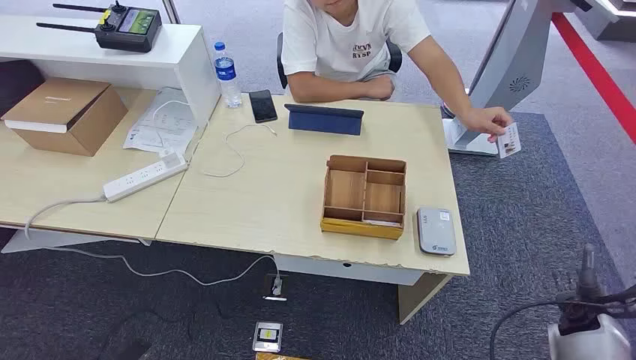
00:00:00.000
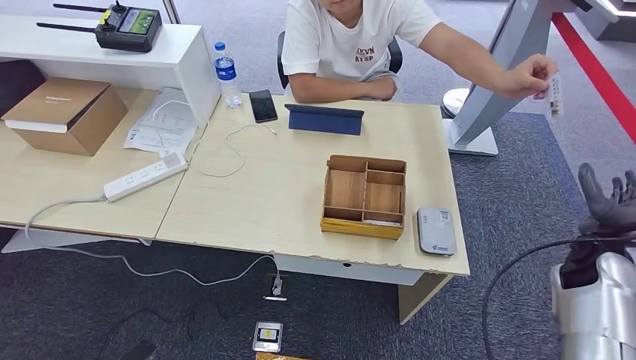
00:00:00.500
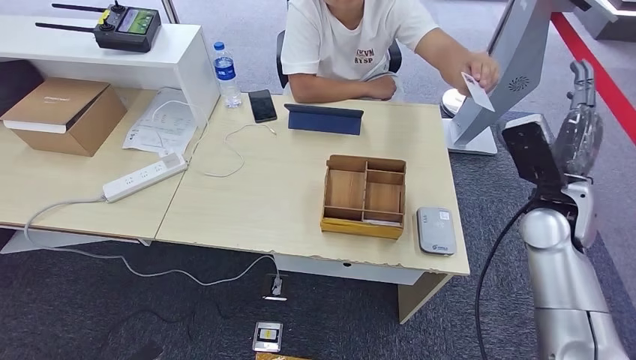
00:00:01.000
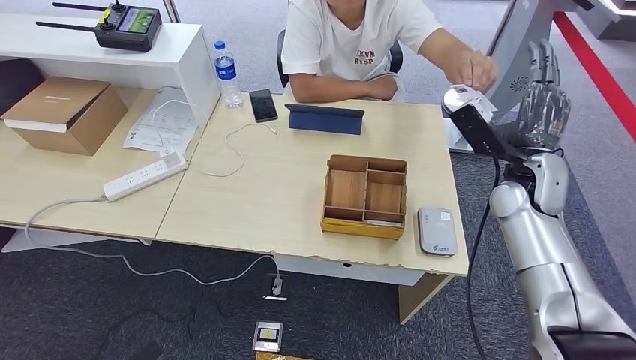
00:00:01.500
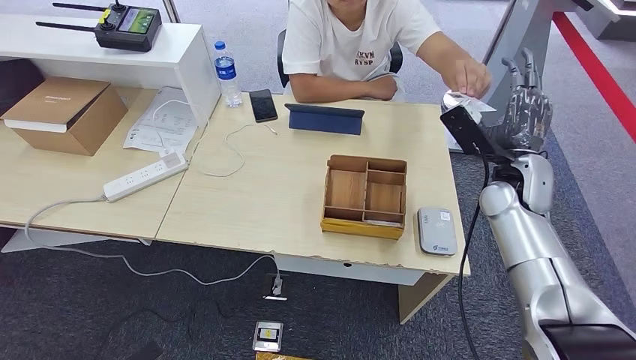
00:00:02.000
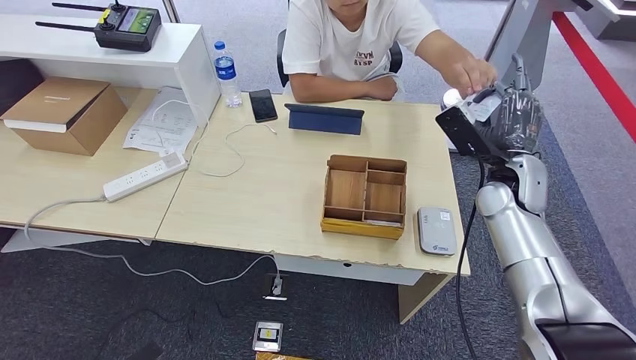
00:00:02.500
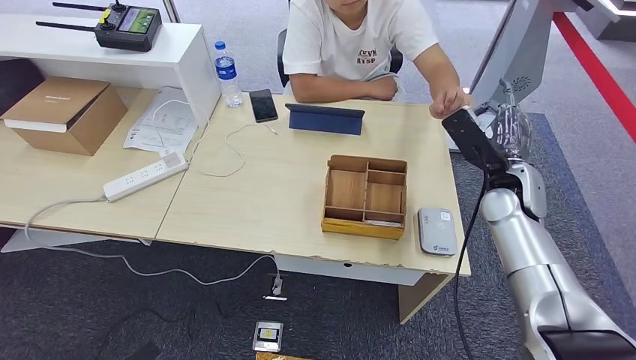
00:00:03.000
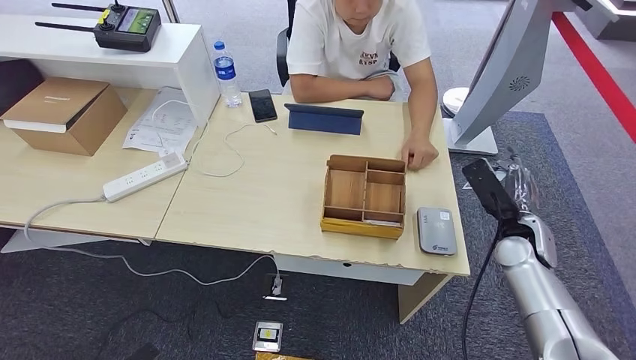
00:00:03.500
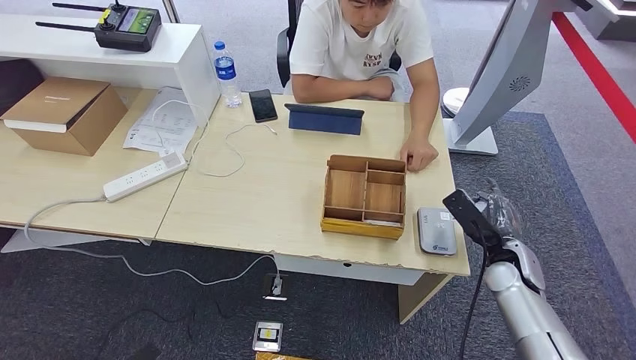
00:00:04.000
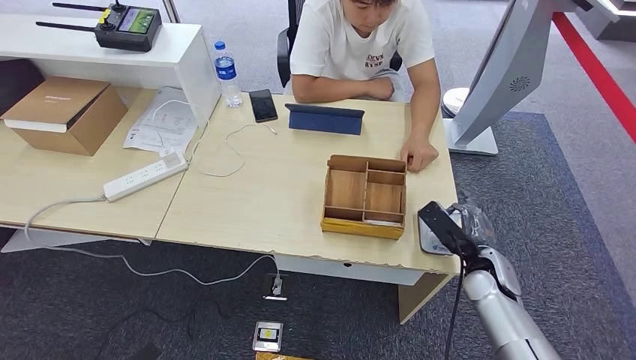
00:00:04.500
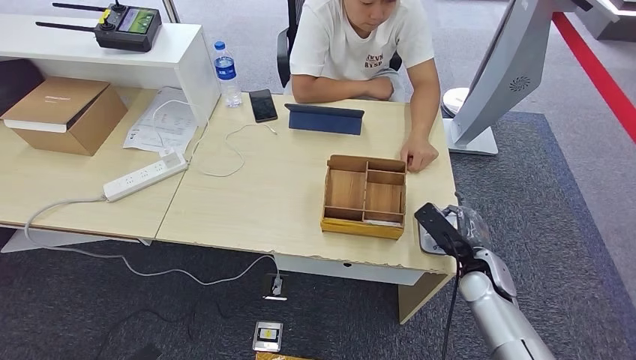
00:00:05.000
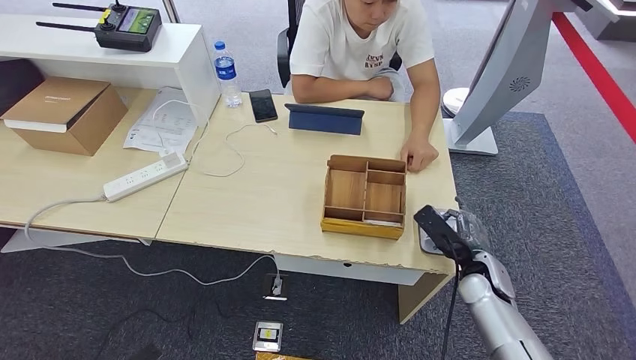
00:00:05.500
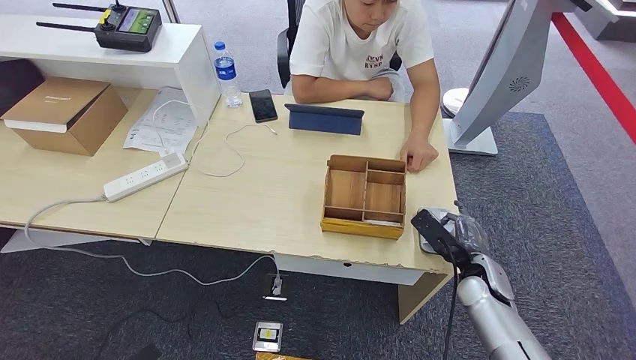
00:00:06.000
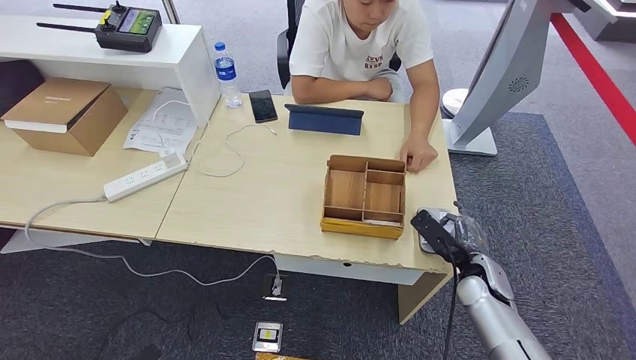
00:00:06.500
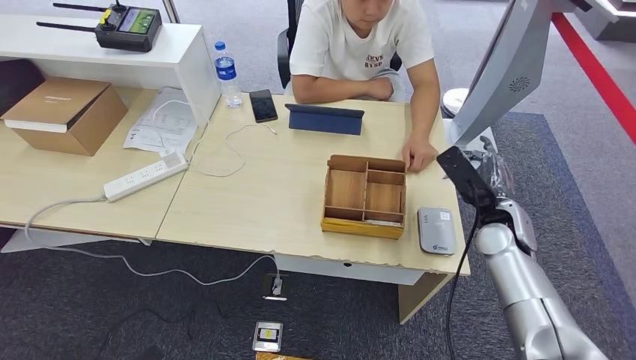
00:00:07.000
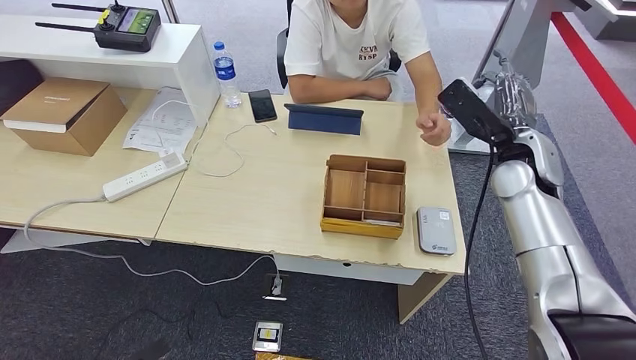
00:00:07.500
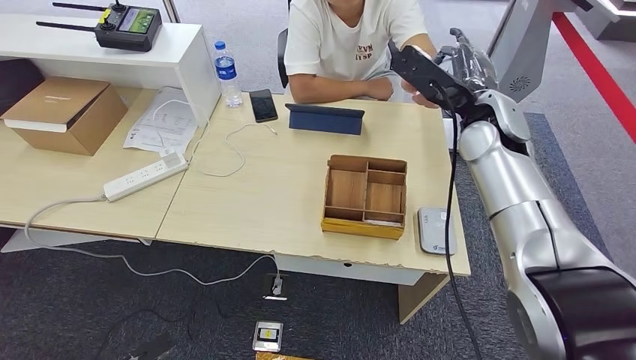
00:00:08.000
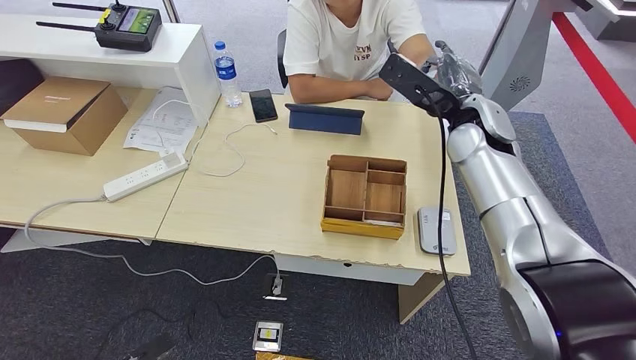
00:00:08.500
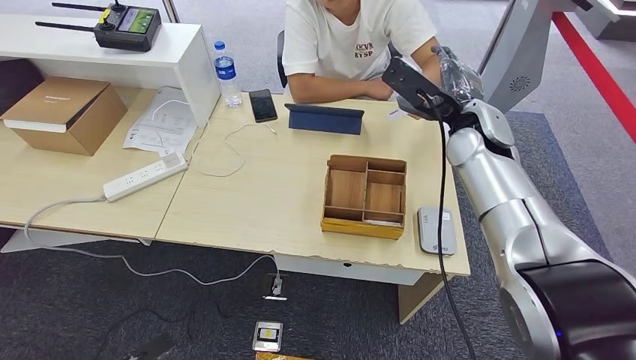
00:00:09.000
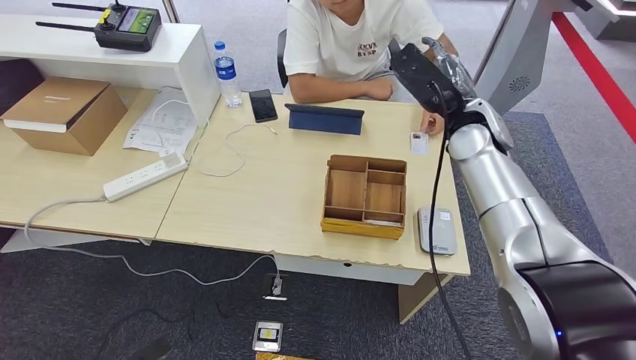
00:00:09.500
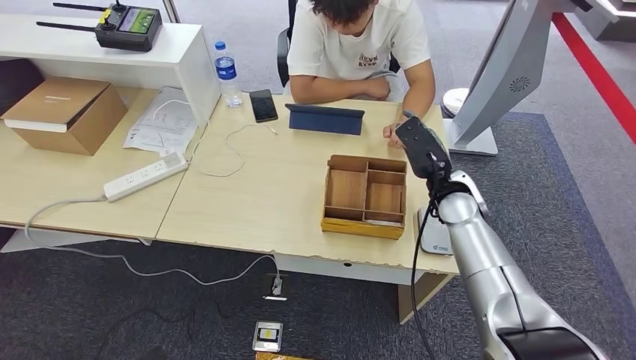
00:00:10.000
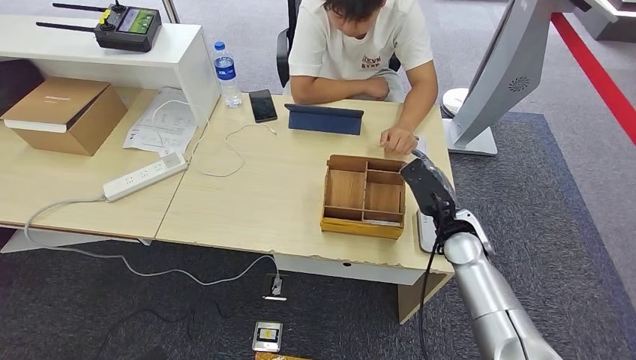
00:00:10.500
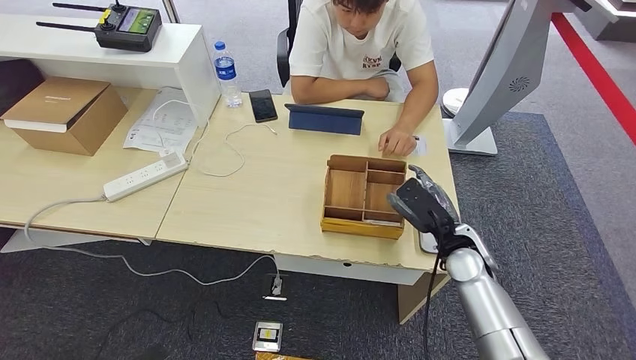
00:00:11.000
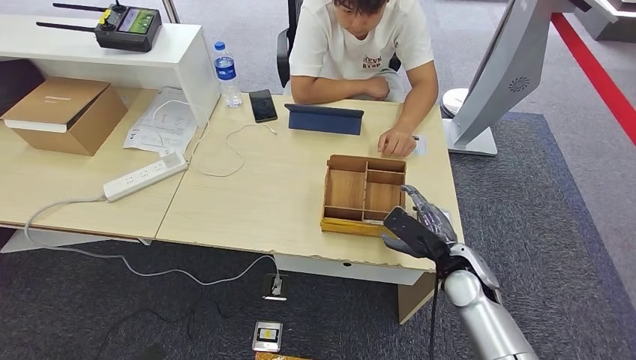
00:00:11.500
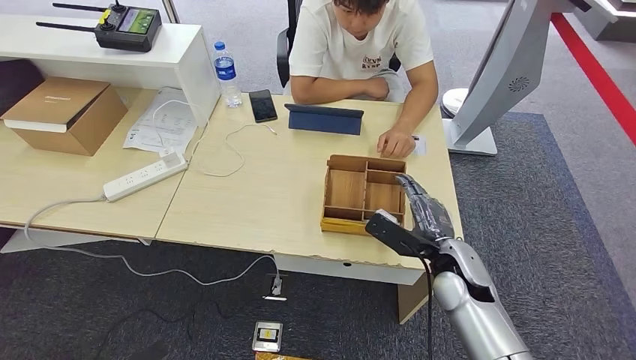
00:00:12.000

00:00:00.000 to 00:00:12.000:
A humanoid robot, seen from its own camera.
Step, 00:00:00.000 to 00:00:03.000: Take the ID card from the person's hand.
Step, 00:00:03.500 to 00:00:05.500: Place the ID card on the card reader.
Step, 00:00:06.000 to 00:00:07.500: Hand the ID card to the person.
00:00:02.000 to 00:00:04.000: The right hand is displaced downward and backward by roughly 15 cm.
00:00:04.000 to 00:00:06.000: The right hand shifts by about 5 cm.
00:00:06.000 to 00:00:08.000: The right hand travels upward and forward by some 30 cm.
00:00:08.000 to 00:00:10.000: The right hand shifts roughly 15 cm downward.
00:00:10.000 to 00:00:12.000: The right hand is displaced backward and downward by approximately 10 cm.

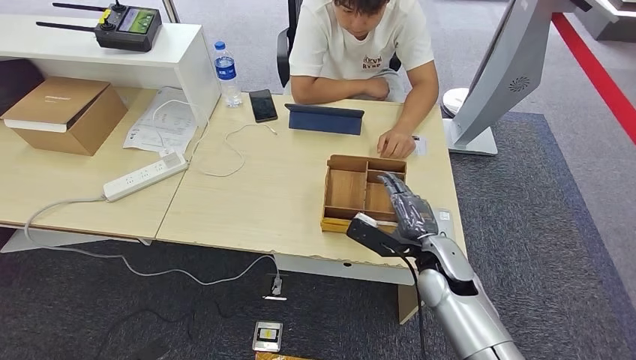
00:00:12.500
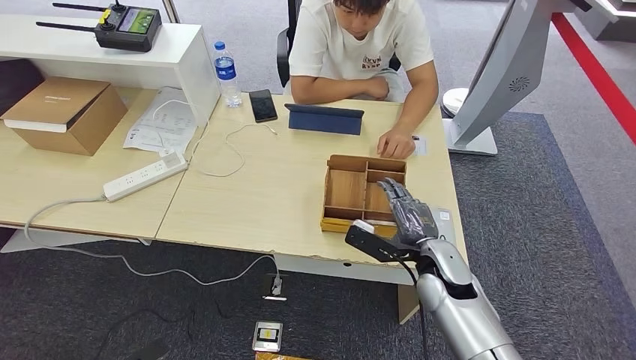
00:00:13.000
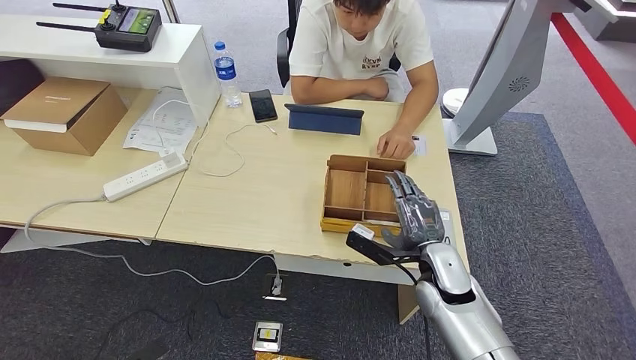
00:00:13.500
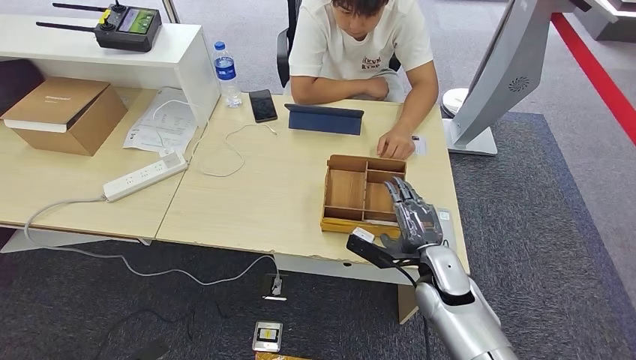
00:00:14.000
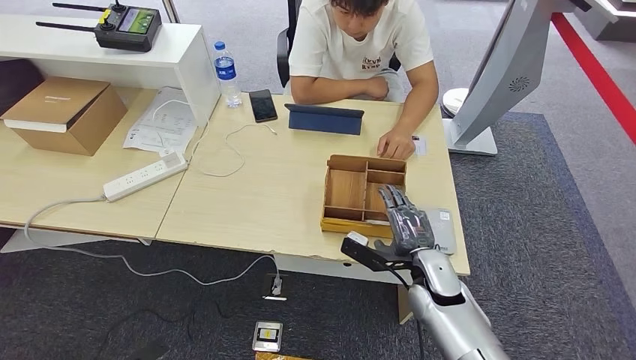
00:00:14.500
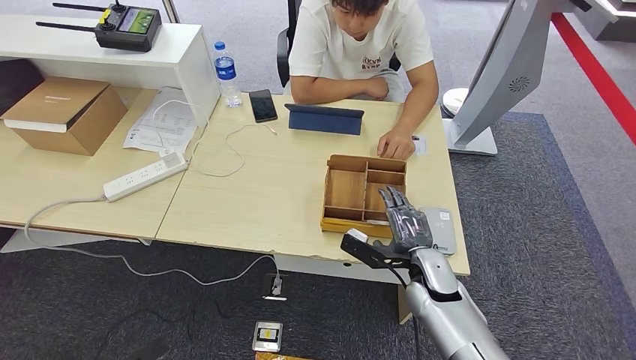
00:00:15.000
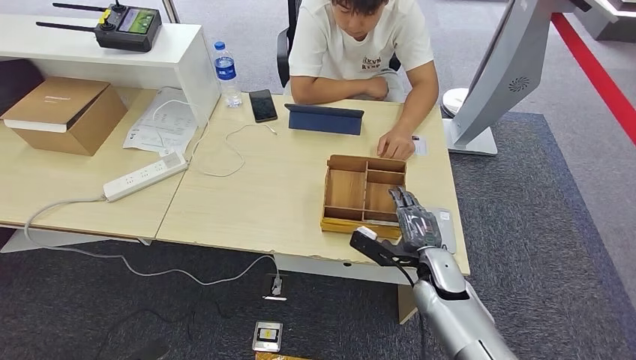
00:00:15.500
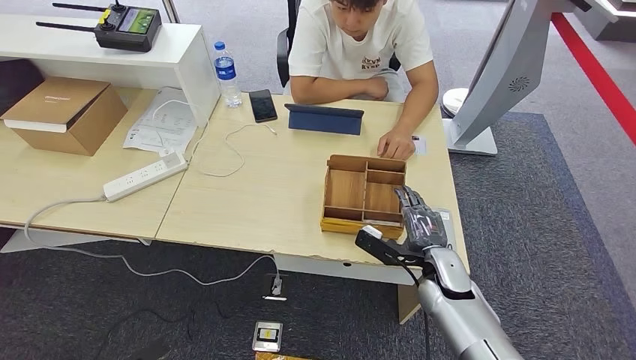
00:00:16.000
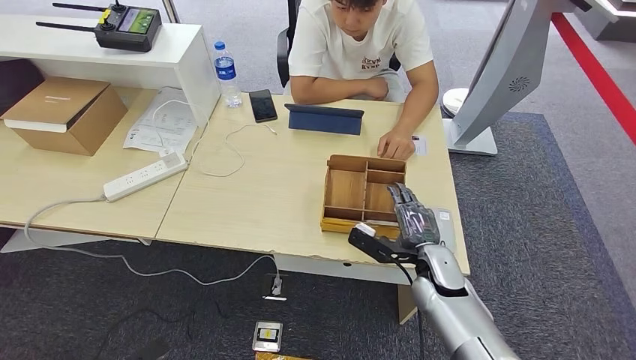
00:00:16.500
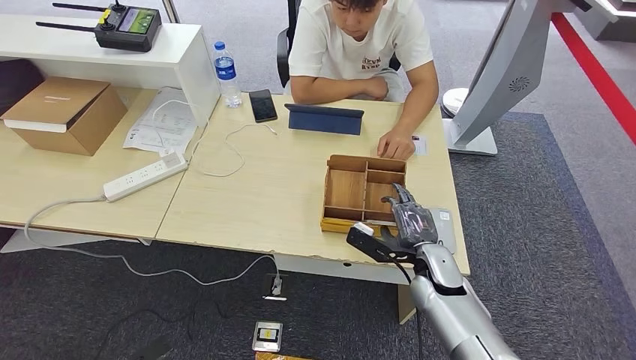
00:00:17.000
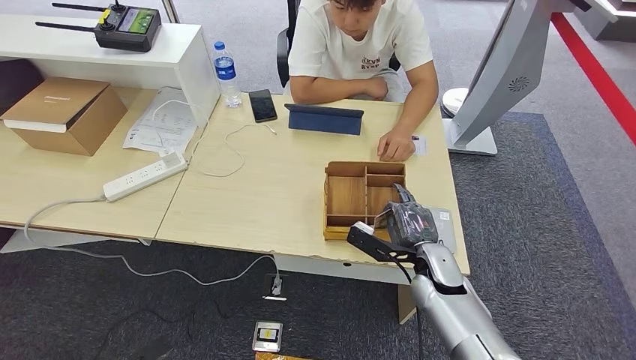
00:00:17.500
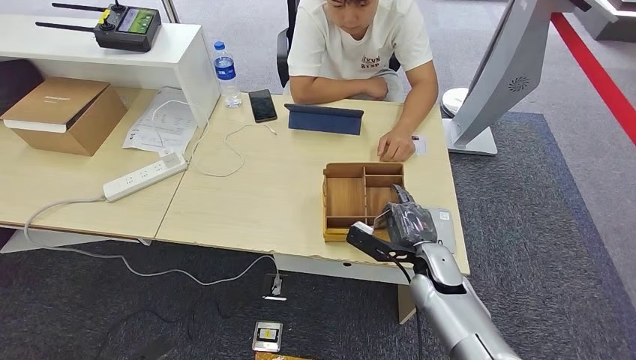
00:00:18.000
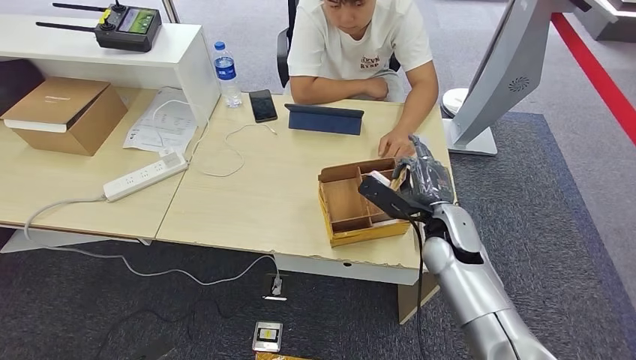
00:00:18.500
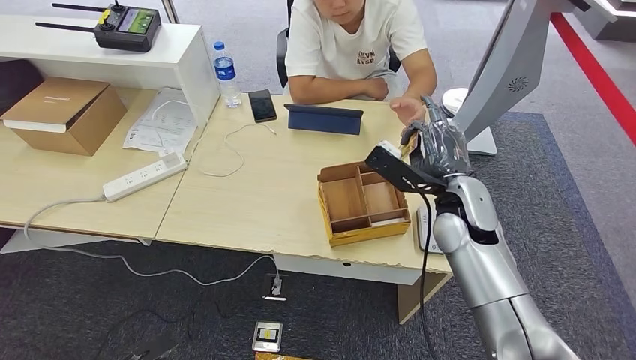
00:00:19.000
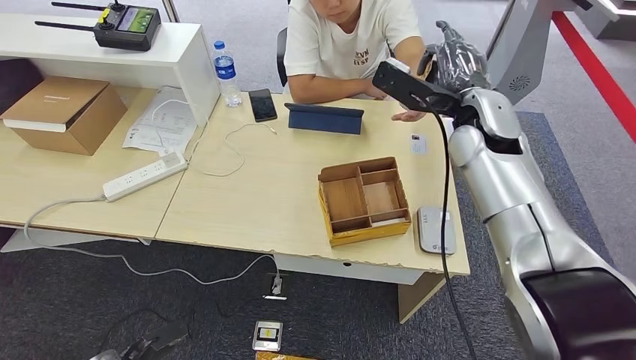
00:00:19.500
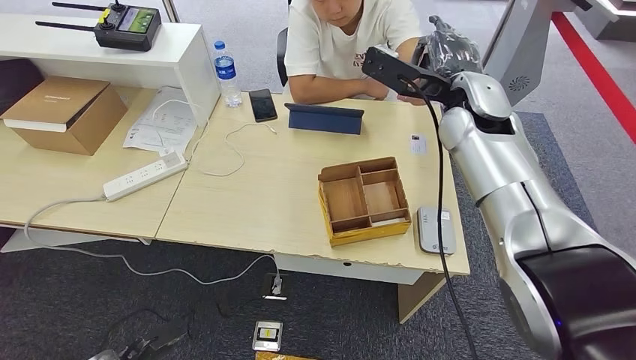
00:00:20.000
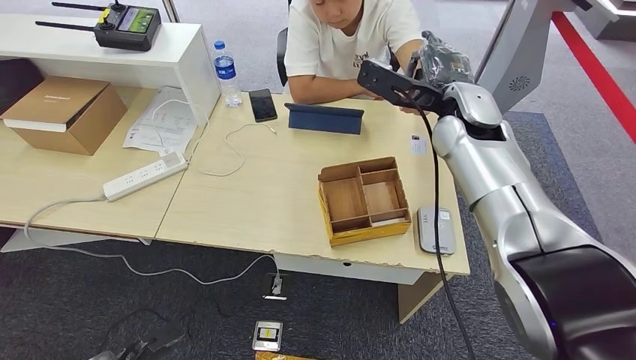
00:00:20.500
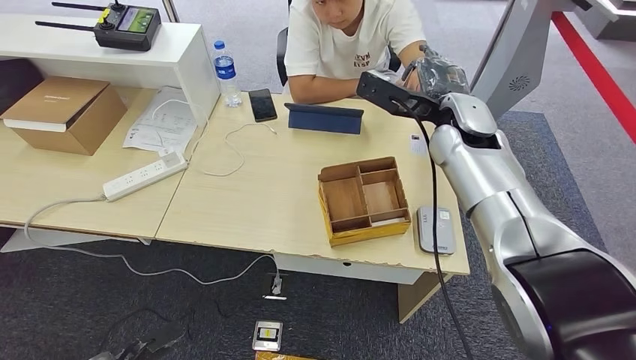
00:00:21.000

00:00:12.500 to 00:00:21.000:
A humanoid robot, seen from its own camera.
Step, 00:00:12.500 to 00:00:18.000: Pick up the room key from the key card box.
Step, 00:00:18.500 to 00:00:21.000: Hand the room key to the person.
00:00:12.500 to 00:00:16.500: The hands make only small movements.
00:00:16.500 to 00:00:19.000: The right hand is displaced upward and forward by about 15 cm.
00:00:19.000 to 00:00:21.000: The right hand travels upward and forward by roughly 15 cm.
